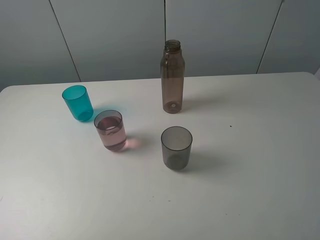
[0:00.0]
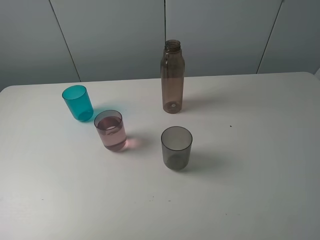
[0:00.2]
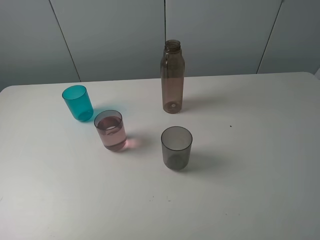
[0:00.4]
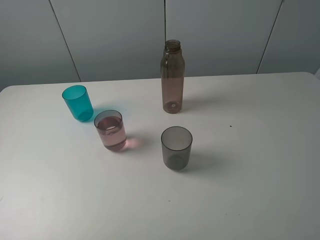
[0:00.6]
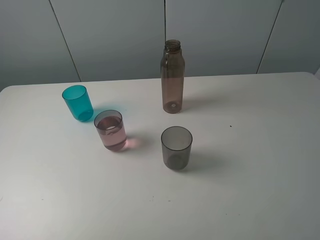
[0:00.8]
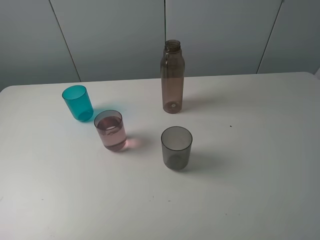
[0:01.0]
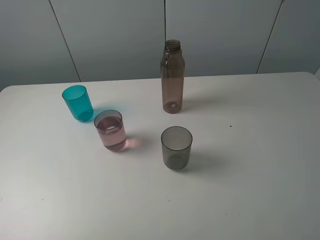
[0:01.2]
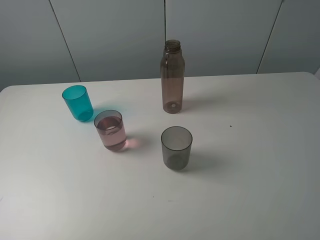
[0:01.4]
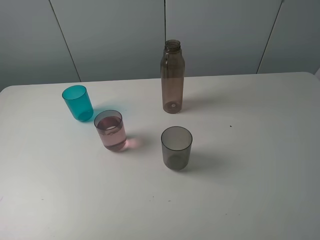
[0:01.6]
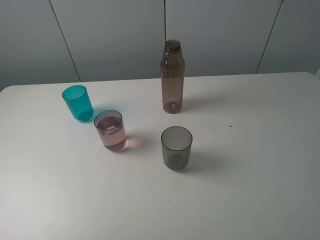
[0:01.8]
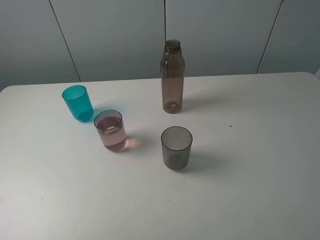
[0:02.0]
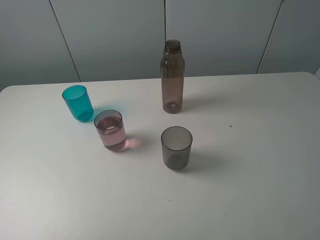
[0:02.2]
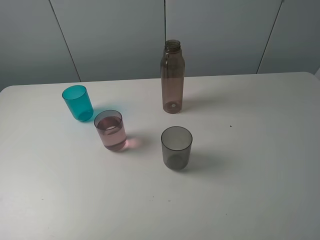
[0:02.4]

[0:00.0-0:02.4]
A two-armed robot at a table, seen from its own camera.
Task of the whole recording: pick up the bottle filled with water and pour water into the middle cup of the three cups.
0:00.0 to 0:02.4: Both grippers stay put.

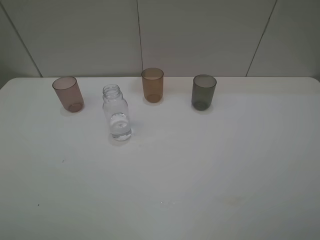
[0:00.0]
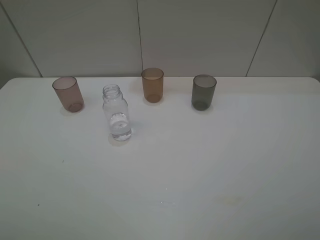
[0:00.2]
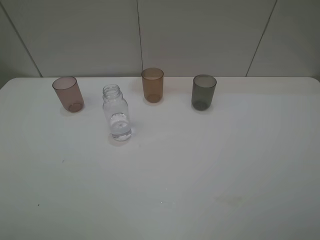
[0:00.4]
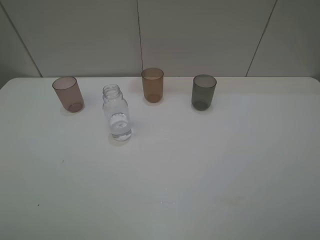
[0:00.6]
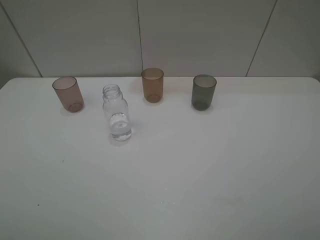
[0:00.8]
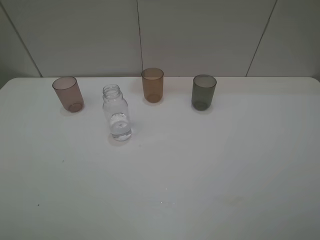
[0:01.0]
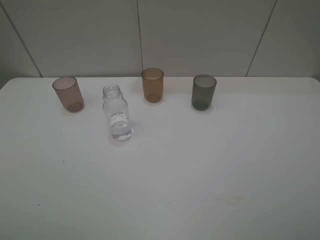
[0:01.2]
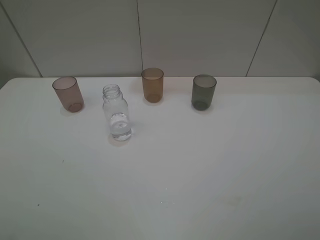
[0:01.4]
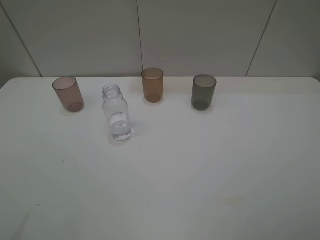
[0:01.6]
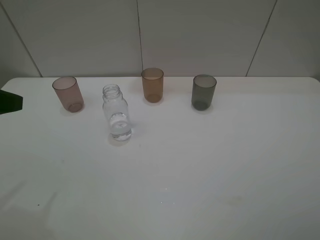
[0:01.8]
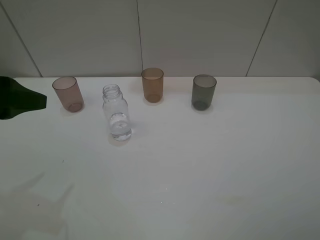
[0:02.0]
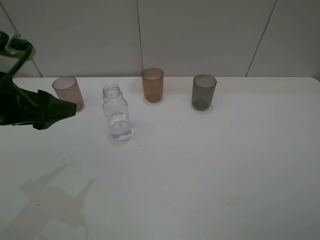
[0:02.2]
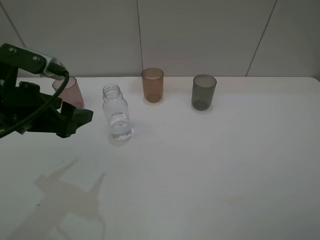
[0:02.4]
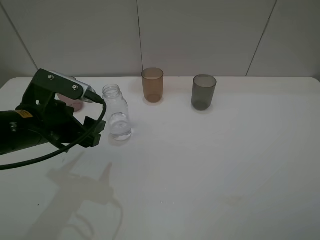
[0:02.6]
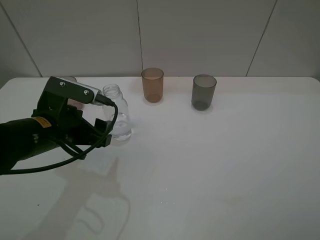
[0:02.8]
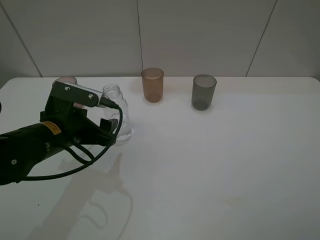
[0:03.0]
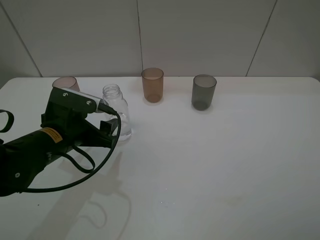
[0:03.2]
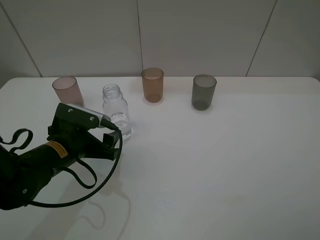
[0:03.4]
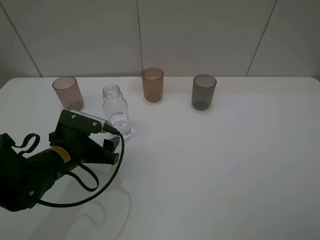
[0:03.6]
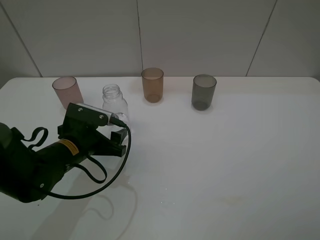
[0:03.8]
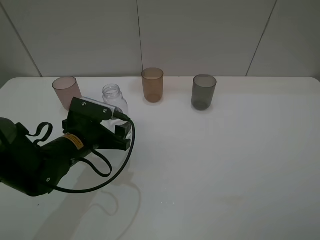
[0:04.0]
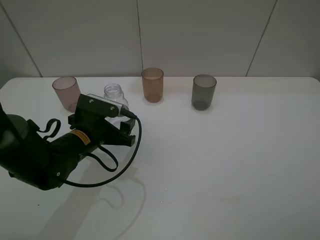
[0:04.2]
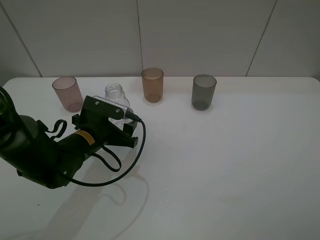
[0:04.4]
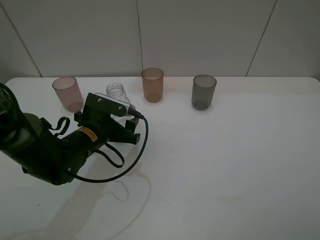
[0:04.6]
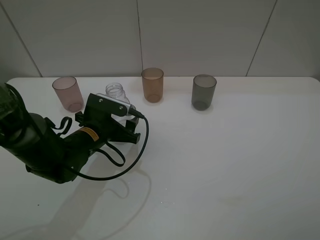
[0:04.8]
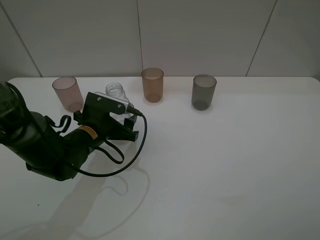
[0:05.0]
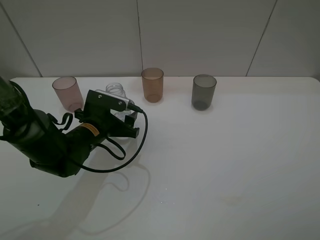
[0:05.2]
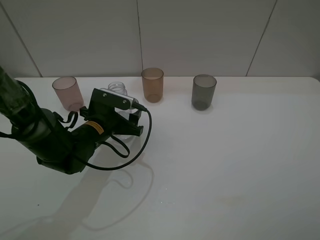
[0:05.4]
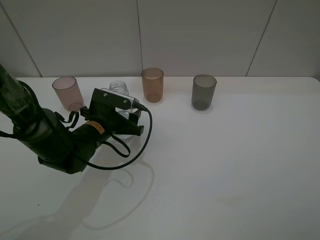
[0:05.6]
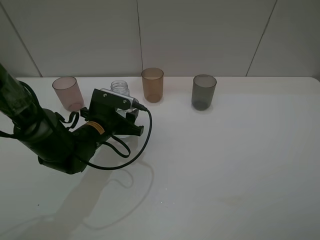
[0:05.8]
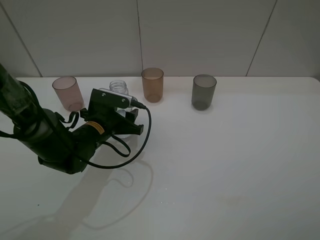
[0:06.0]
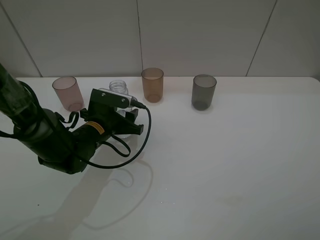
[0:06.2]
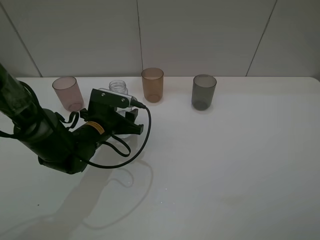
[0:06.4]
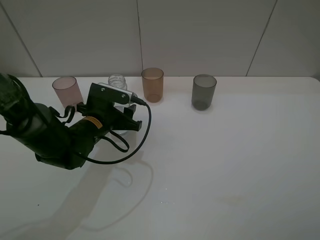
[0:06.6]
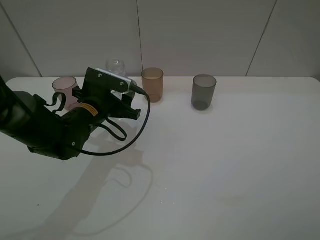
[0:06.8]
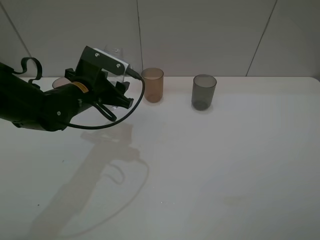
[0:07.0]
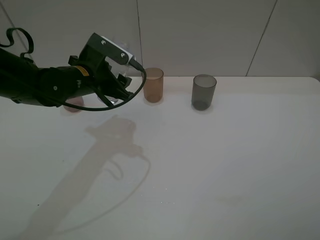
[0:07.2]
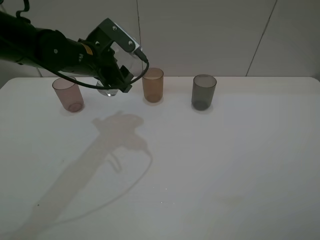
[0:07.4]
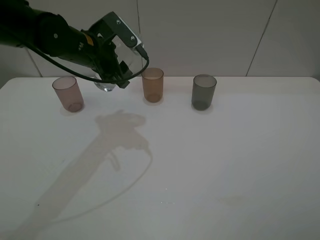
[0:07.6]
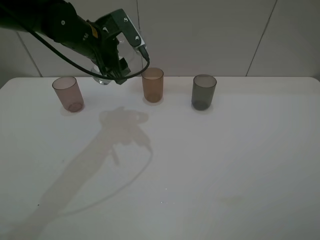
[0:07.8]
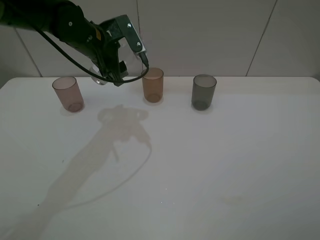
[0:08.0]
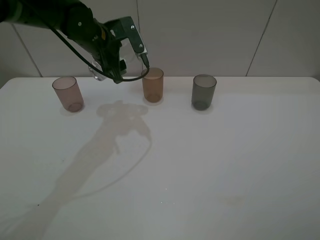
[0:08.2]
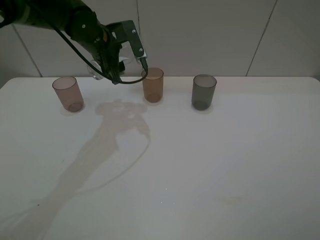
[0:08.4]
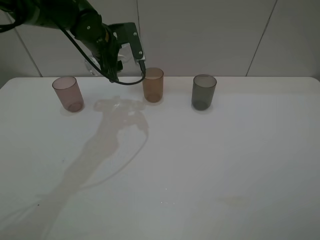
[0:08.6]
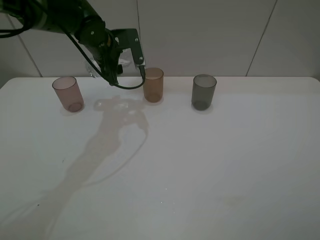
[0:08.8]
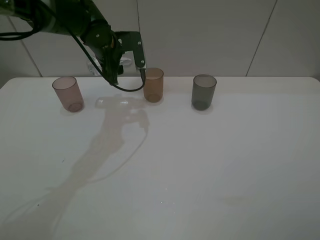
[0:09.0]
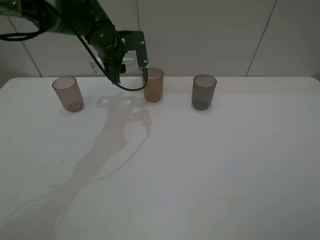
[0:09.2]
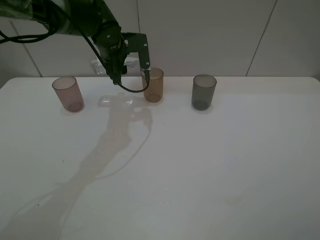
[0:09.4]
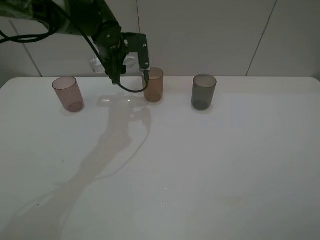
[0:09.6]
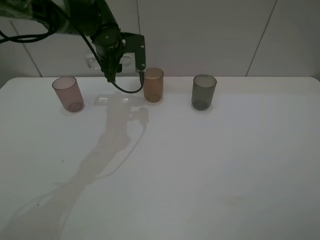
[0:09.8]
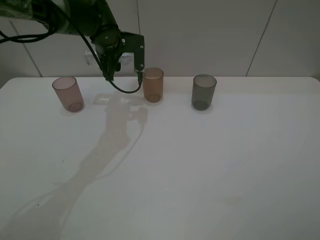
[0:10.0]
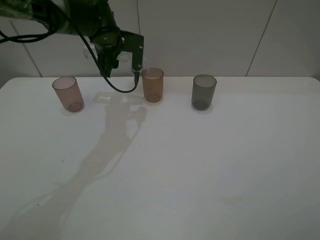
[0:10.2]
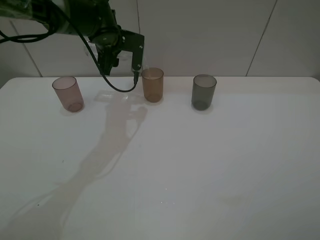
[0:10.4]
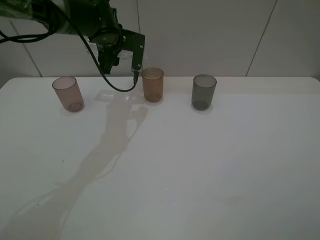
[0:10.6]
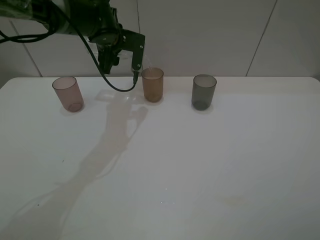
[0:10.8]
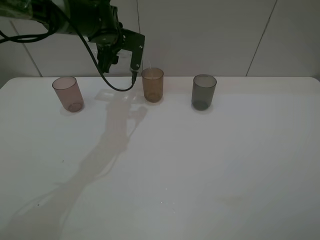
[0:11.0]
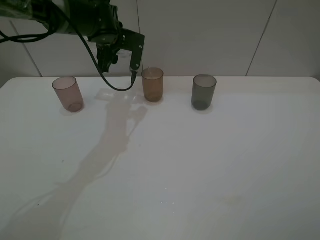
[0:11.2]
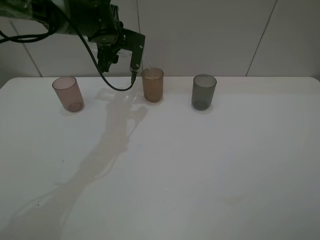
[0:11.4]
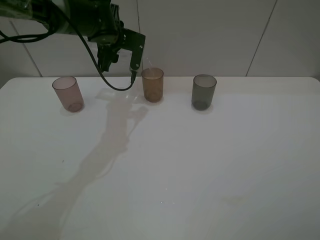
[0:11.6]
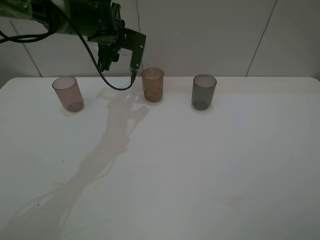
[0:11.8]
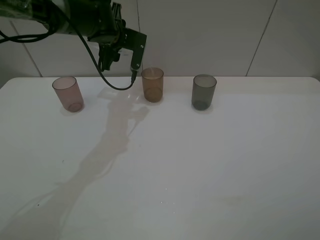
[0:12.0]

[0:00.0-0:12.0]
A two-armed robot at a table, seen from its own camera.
Task of the whole recording: pick up the bottle filled with water and pour water into the middle cup of the three cups.
Step, 0:00.0 to 0:05.4: Grasp the transparent bottle with the left gripper.
Step, 0:05.6 to 0:11.8: Pour water from transparent bottle to brown cup with the left gripper.
0:01.6 to 0:03.0: The left gripper shifts about 25 cm downward, to the right and forward.
0:03.0 to 0:04.4: The left gripper travels downward by approximately 5 cm.
0:04.4 to 0:06.0: The left gripper closes.
0:06.0 to 0:07.6: The left gripper heads upward and forward, covering about 15 cm.
0:07.6 to 0:09.0: The left gripper shifts approximately 5 cm forward.
0:09.0 to 0:10.4: The grippers move only a little.
0:10.4 to 0:12.0: The grippers stay close to where they were, moving slightly.

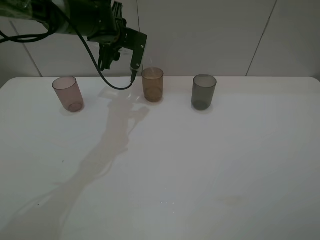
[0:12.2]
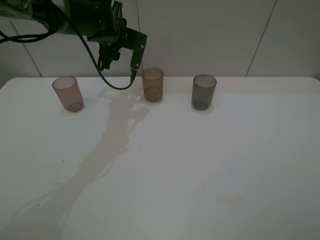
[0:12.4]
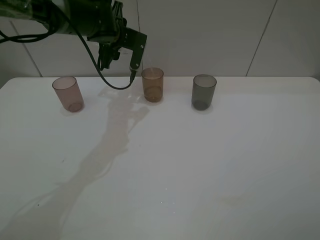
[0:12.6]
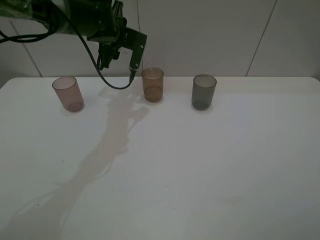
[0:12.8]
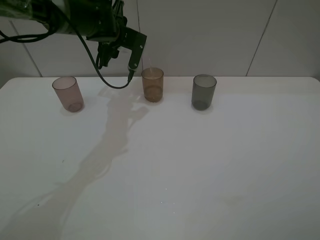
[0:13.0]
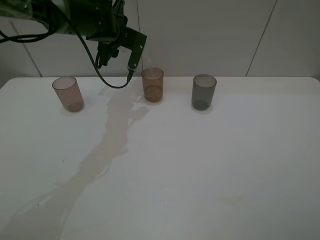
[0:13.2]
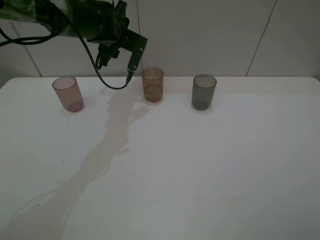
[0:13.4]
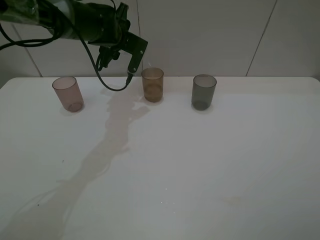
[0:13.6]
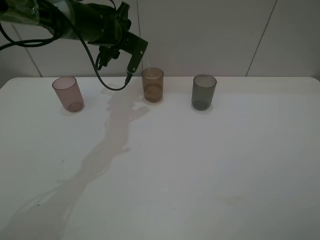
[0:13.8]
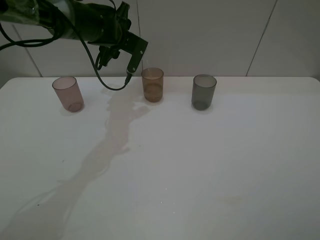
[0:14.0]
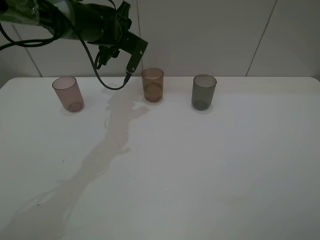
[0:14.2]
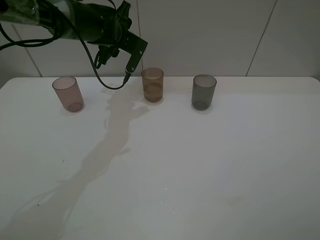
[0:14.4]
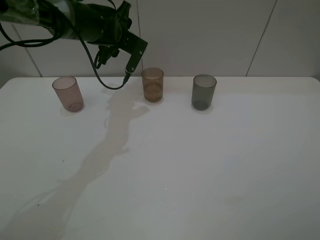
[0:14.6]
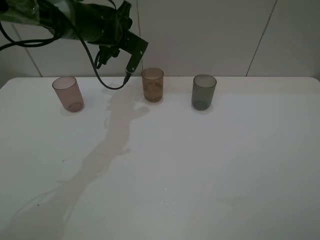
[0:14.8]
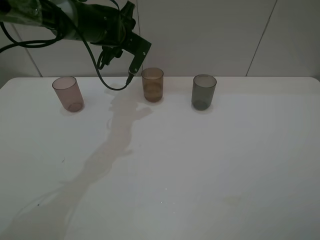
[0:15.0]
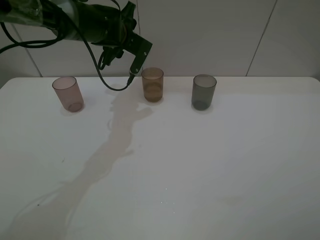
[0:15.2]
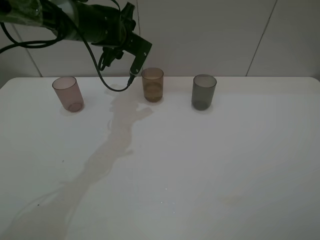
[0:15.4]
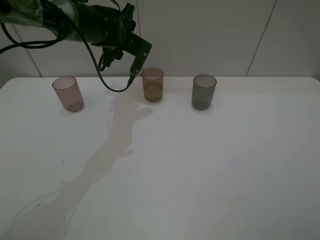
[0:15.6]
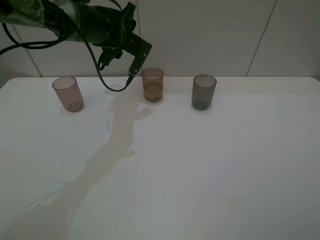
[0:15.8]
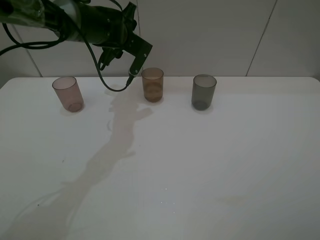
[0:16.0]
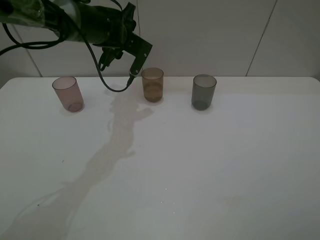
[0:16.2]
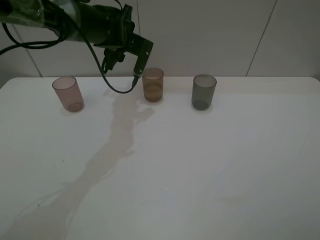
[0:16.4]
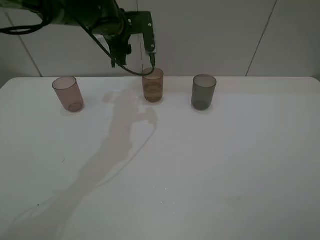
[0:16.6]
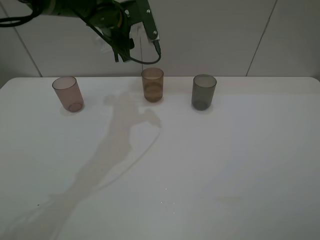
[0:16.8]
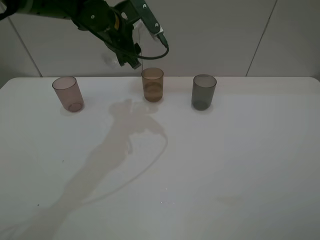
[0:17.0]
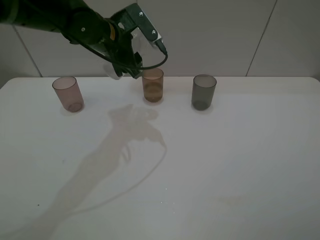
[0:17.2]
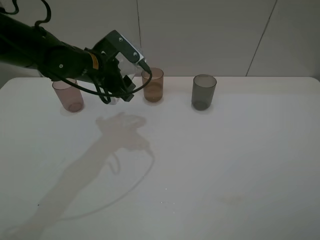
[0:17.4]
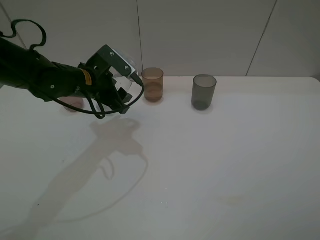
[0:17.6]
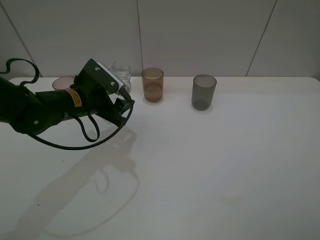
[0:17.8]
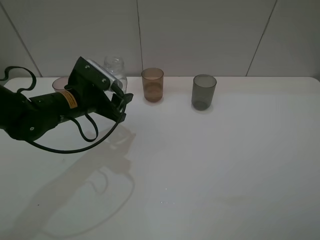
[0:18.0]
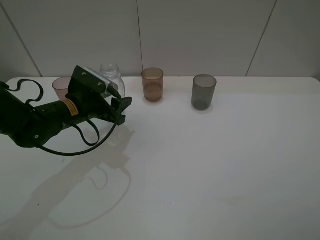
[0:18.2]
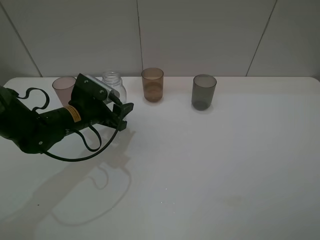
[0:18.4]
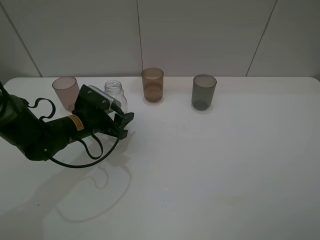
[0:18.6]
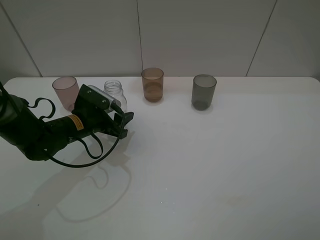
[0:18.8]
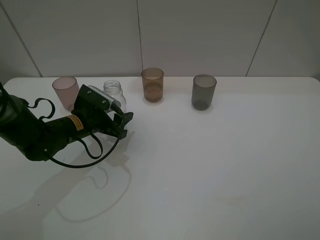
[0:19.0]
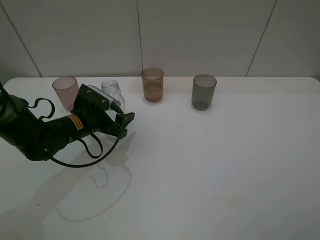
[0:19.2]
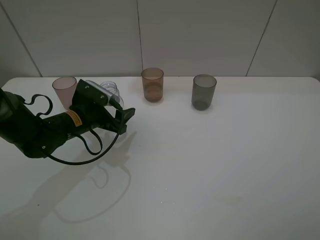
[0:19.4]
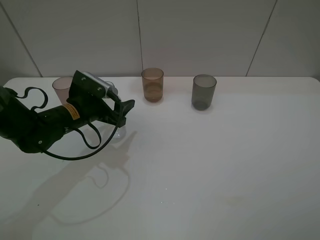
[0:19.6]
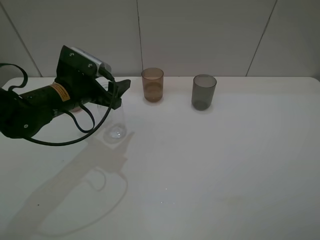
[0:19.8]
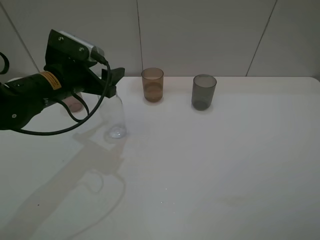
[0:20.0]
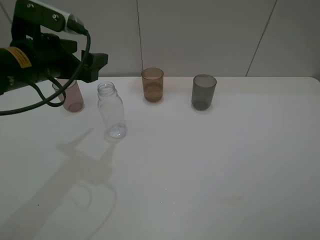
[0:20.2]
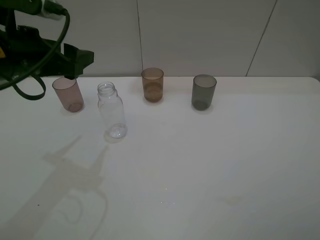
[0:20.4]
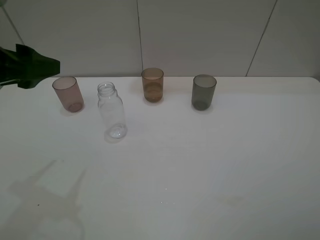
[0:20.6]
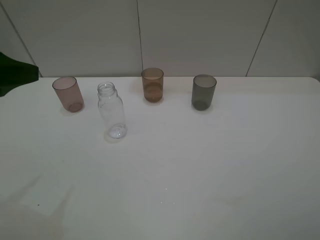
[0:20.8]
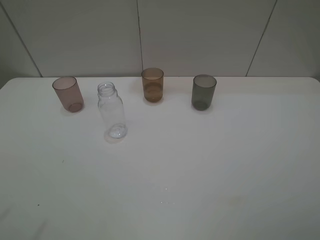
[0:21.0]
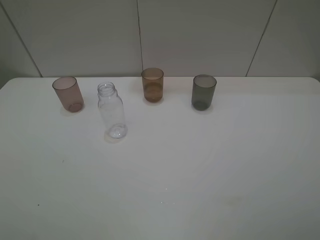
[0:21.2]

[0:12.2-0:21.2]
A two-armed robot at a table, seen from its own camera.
Task of the whole recording: pick up the bottle filled with water and pour water into the middle cup of the three cups.
Step, 0:12.2 to 0:20.6: Place the transparent bottle with the left gripper.
0:12.2 to 0:13.8: The grippers make only small movements.
0:13.8 to 0:15.2: Neither gripper changes place.
0:16.6 to 0:18.2: The left gripper is displaced backward, downward and to the left by about 20 cm.
0:18.2 to 0:19.8: The left gripper opens.
0:19.8 to 0:21.2: The left gripper travels backward, upward and to the left by approximately 30 cm.
